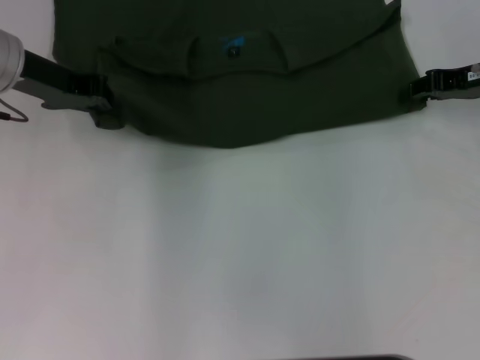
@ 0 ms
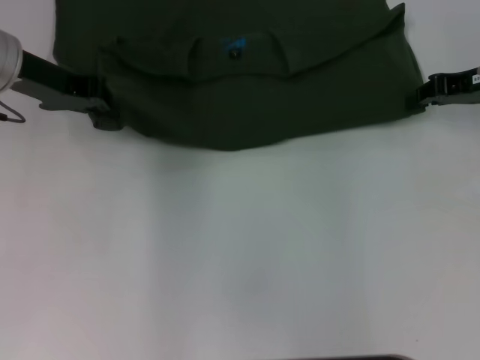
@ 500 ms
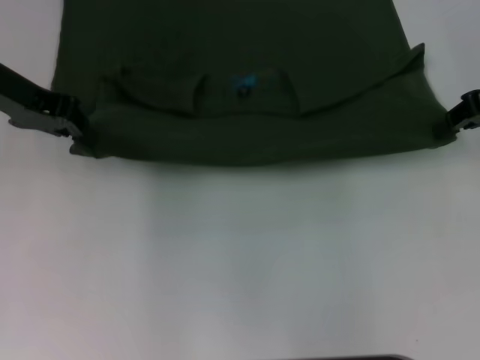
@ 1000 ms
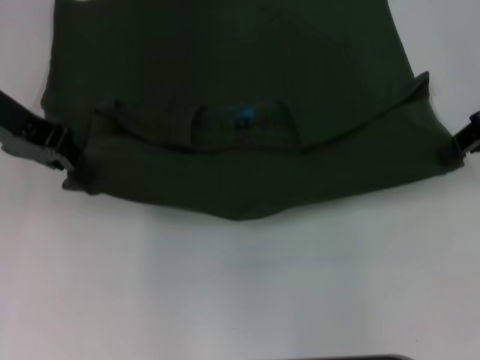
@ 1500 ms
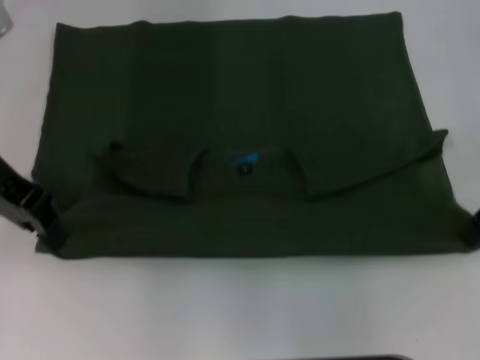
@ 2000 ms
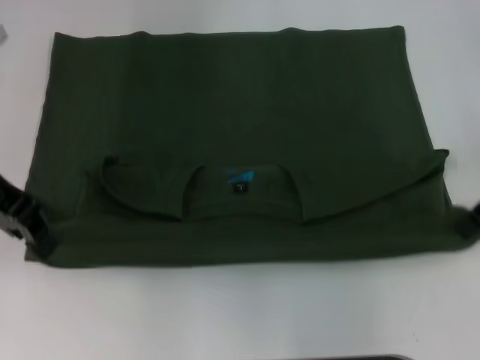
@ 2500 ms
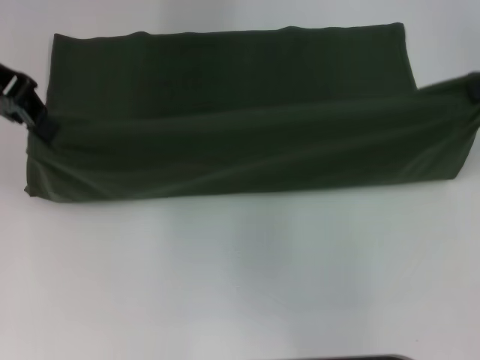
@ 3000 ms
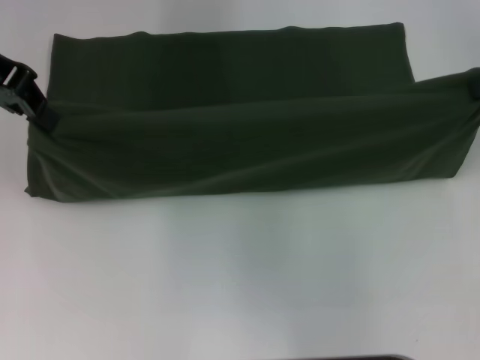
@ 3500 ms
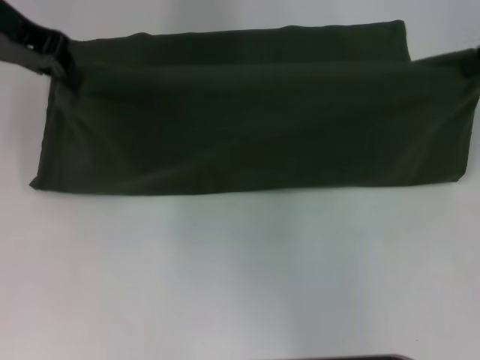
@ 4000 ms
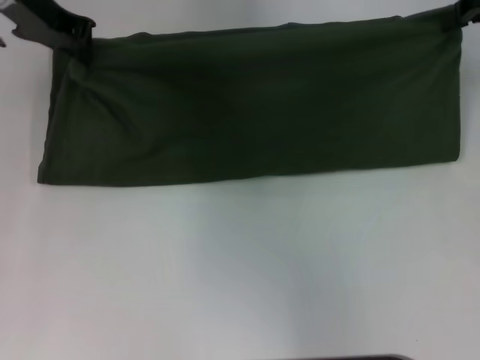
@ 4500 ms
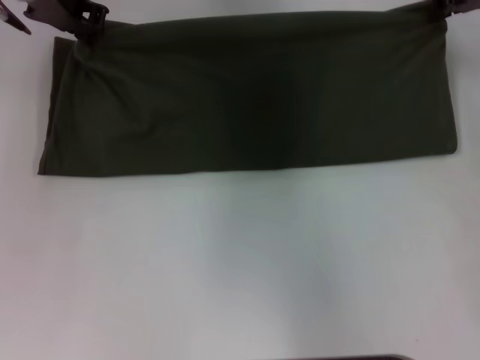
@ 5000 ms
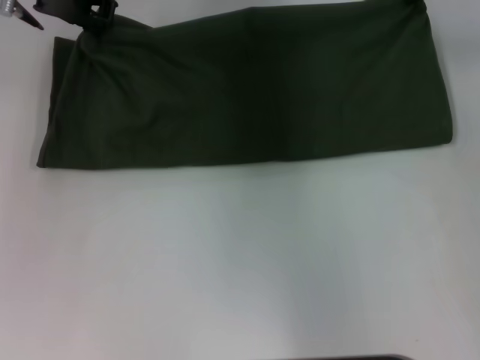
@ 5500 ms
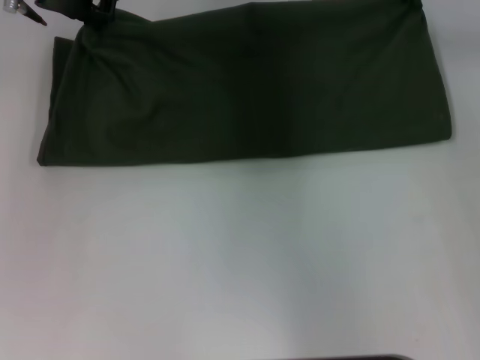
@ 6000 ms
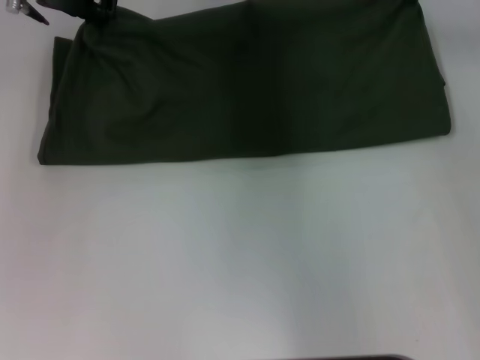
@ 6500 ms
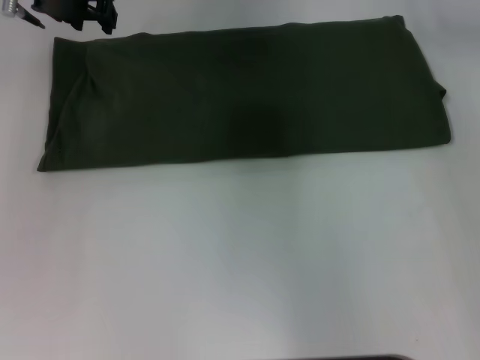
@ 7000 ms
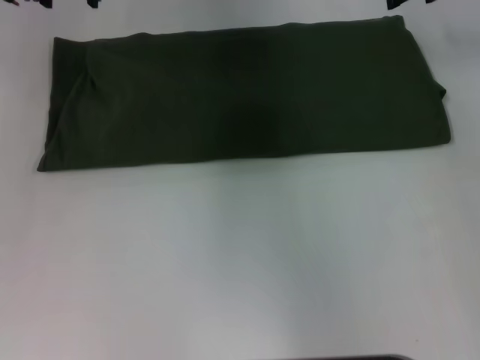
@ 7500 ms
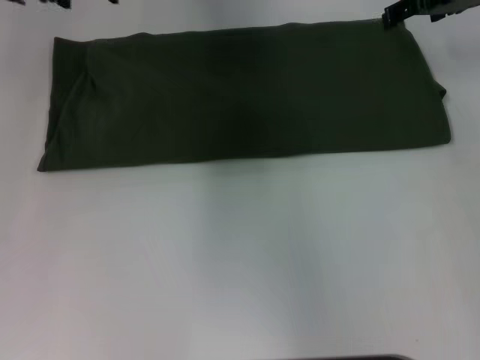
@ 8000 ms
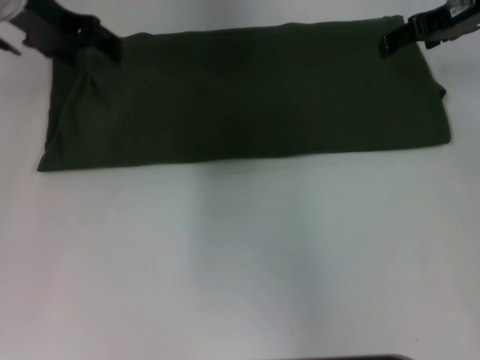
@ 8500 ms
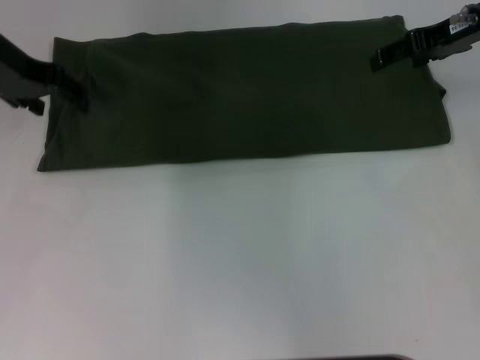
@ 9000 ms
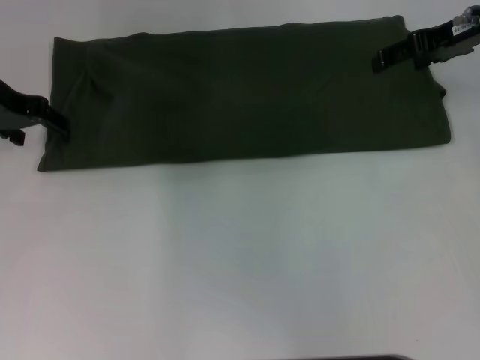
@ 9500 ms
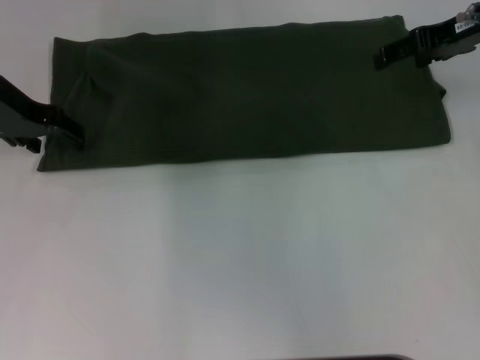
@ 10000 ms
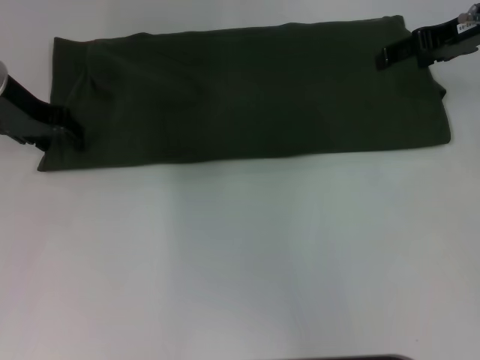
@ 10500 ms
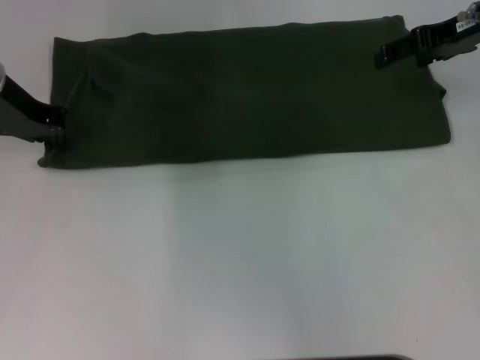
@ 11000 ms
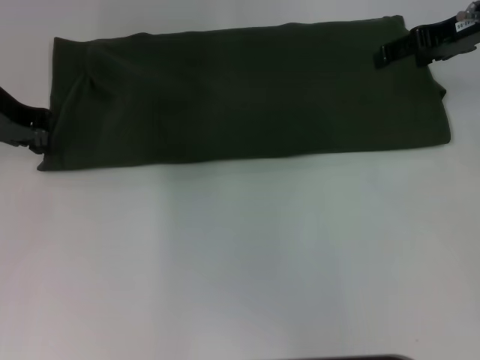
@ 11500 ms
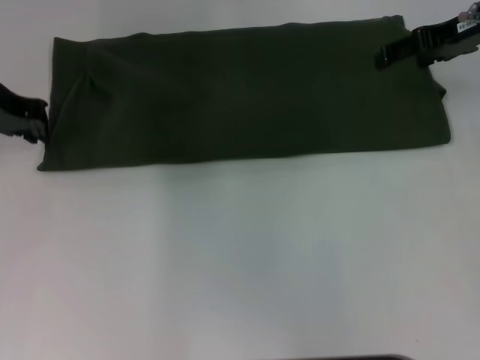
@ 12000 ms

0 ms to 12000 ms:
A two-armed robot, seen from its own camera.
Step, 0 ms to 2000 ms: Pull the clothes with your left hand.
Step, 0 ms to 2000 ms: Pull the clothes with your right hand.
Step, 2500 ms to 7000 ms: Fold the clothes with your left hand.
Step, 2500 ms to 7000 ms: Fold the clothes with your right hand.
0 ms to 2000 ms: Both grippers travel together backward, approximately 5 cm. The right gripper closes its fingers.
2000 ms to 4000 ms: The left gripper is displaced forward and upward by about 10 cm; the right gripper goes roughly 10 cm upward and forward.
4000 ms to 6000 ms: The left gripper shifts approximately 10 cm to the right; the right gripper is displaced to the left and forward by approximately 10 cm.
6000 ms to 8000 ms: The left gripper opens up. The right gripper opens.
8000 ms to 10000 ms: The left gripper shifts some 10 cm downward and backward.
10000 ms to 12000 ms: The left gripper closes its fingers.

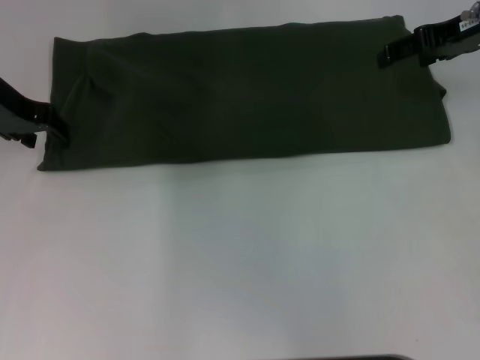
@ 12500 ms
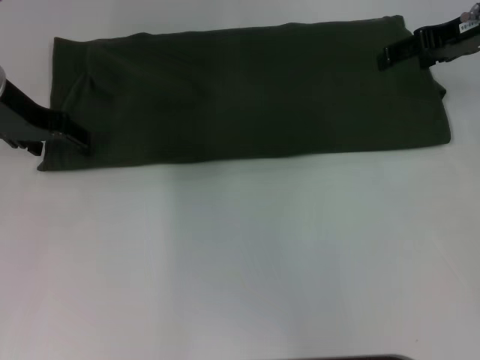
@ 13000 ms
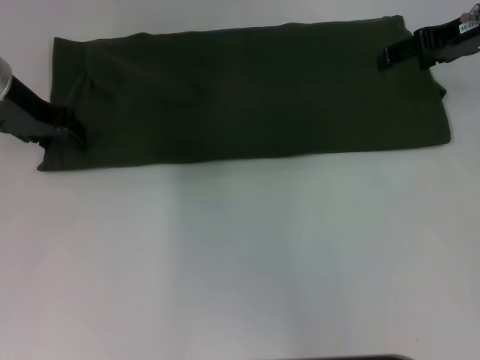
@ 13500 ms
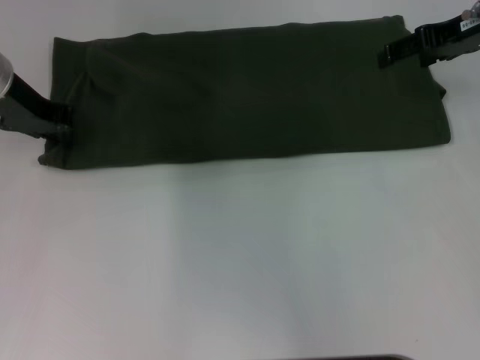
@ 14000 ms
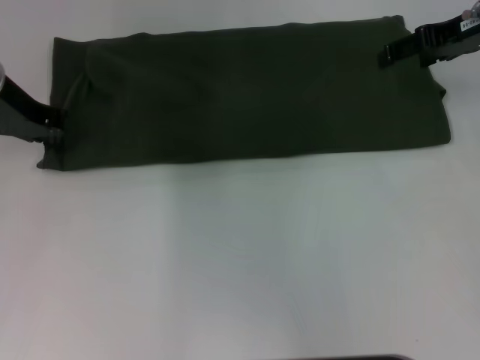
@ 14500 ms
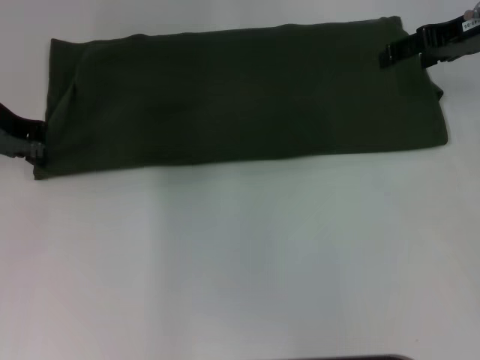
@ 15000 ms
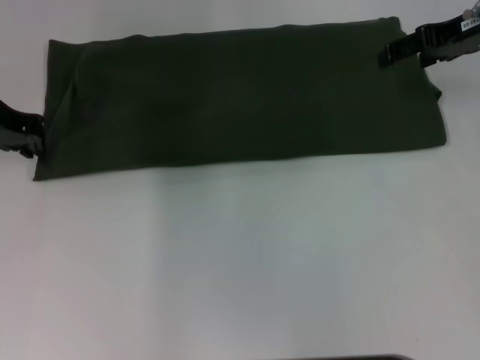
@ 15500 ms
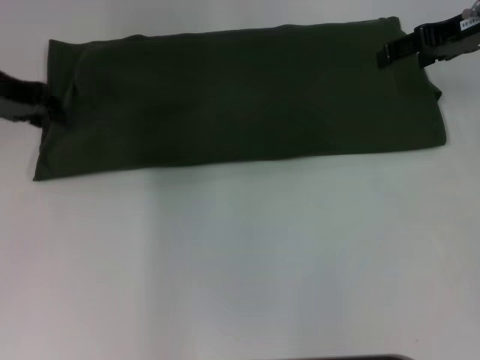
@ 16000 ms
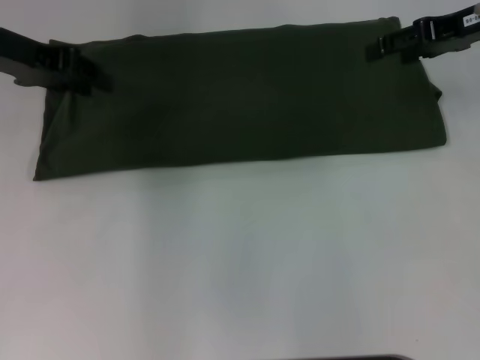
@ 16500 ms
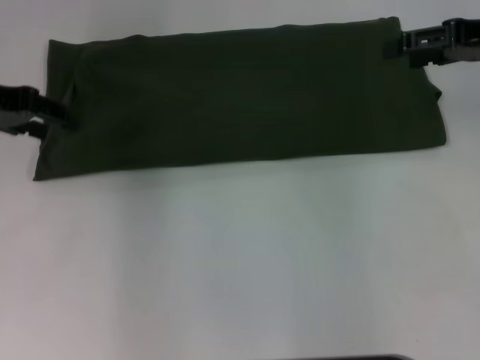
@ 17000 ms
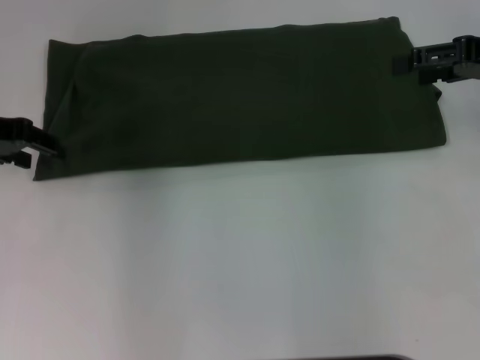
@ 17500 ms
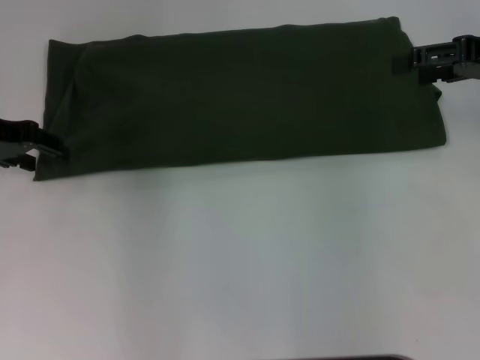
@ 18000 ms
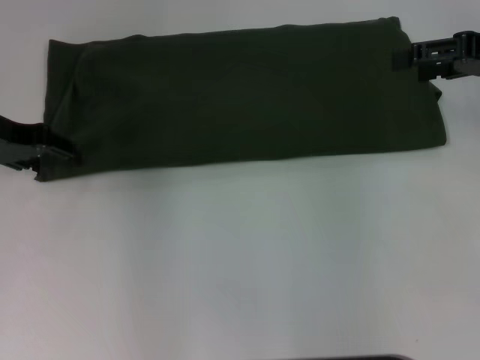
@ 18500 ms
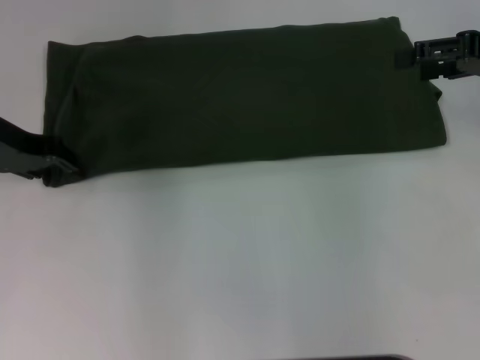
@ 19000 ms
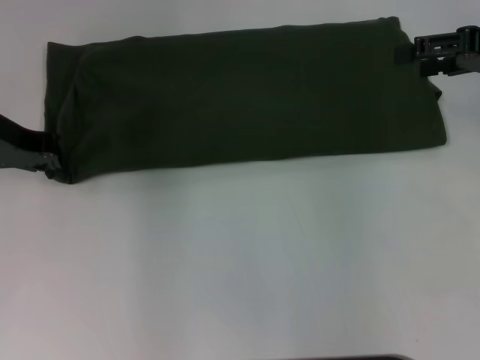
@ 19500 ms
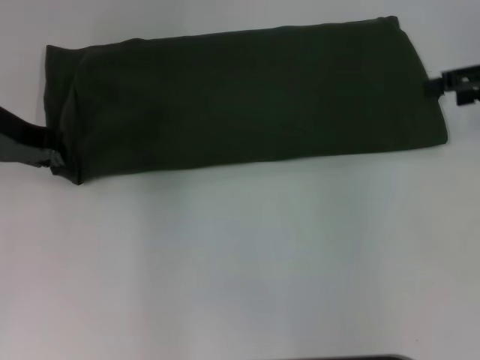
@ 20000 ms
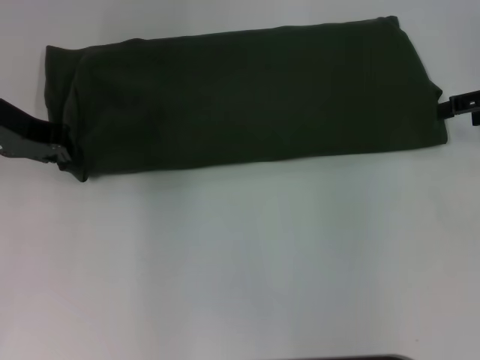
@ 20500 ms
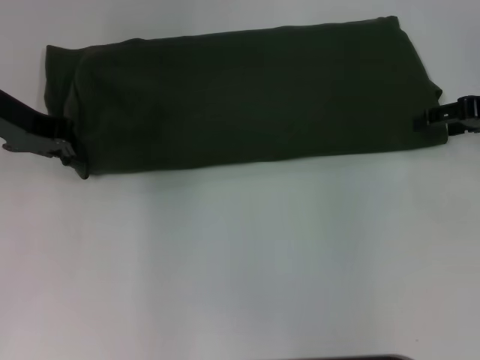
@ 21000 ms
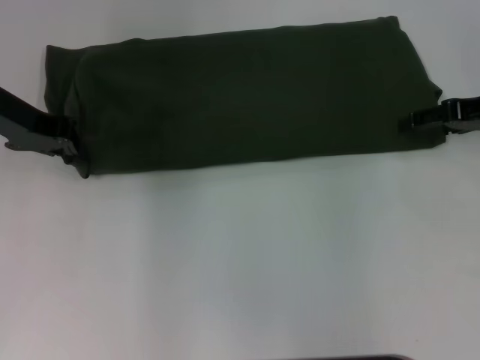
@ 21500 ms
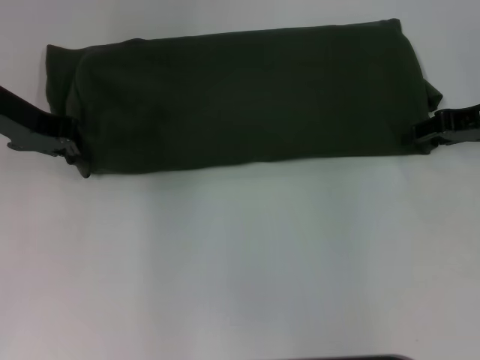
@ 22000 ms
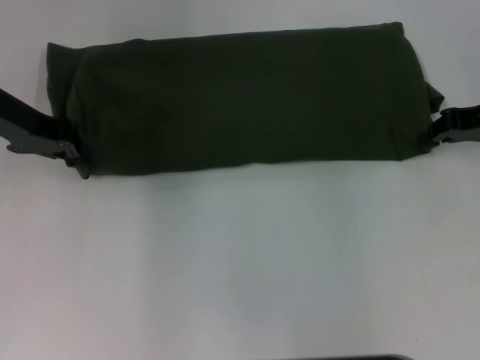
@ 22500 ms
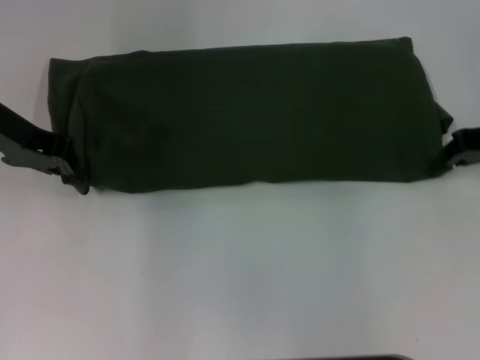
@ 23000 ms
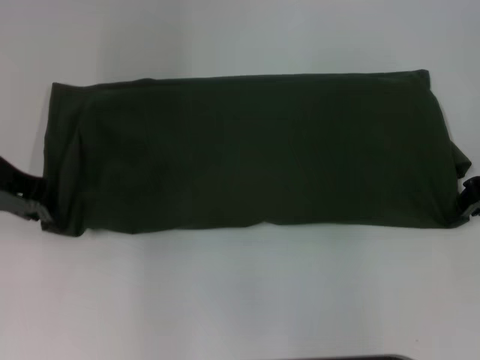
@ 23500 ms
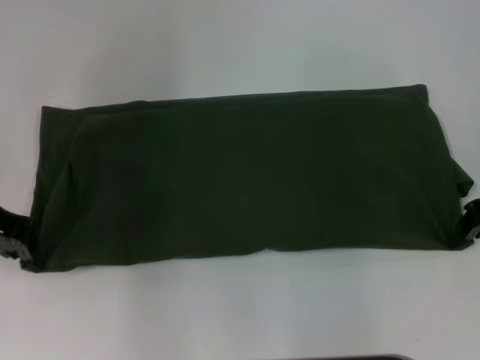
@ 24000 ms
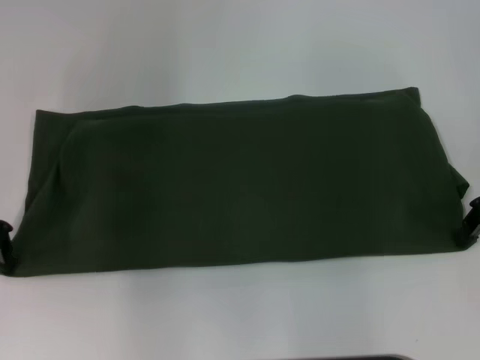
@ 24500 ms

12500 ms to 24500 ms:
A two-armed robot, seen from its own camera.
14500 ms to 16500 ms: The left gripper opens.
16500 ms to 18500 ms: The right gripper shifts by some 5 cm. The left gripper shifts some 5 cm downward.
18500 ms to 20500 ms: The left gripper closes.
20500 ms to 22500 ms: The right gripper closes.
22500 ms to 24500 ms: The left gripper moves backward, about 5 cm.

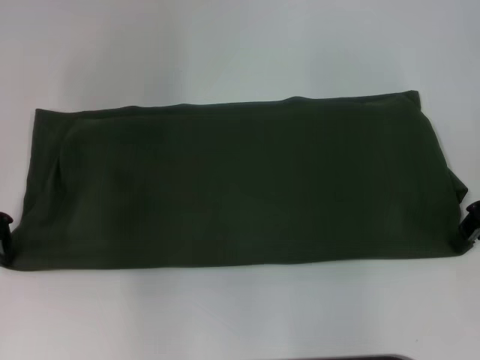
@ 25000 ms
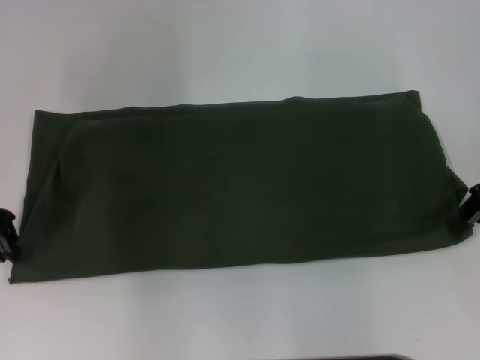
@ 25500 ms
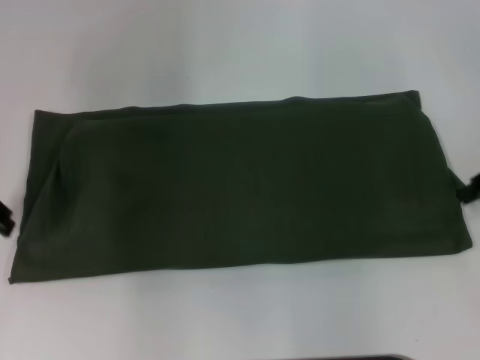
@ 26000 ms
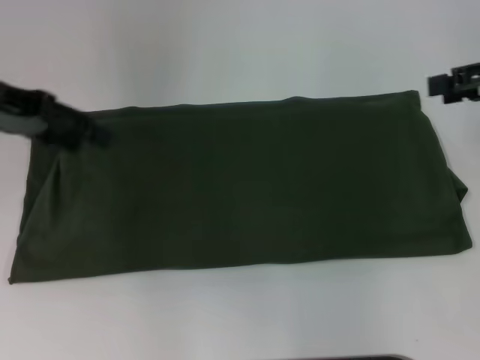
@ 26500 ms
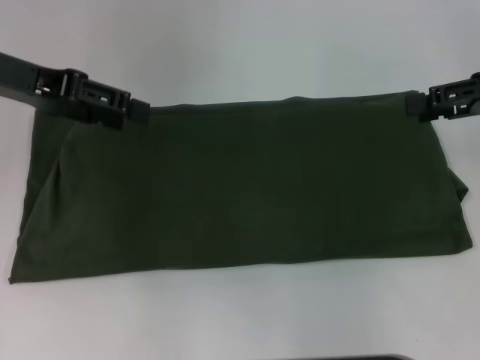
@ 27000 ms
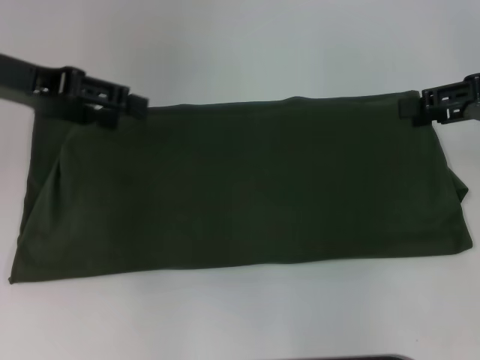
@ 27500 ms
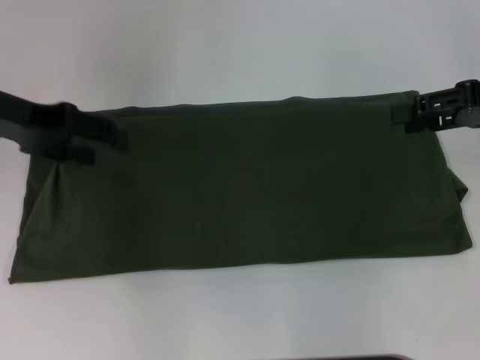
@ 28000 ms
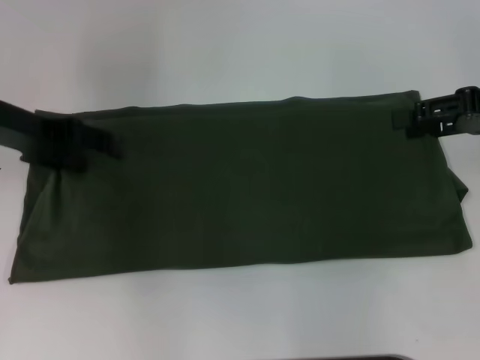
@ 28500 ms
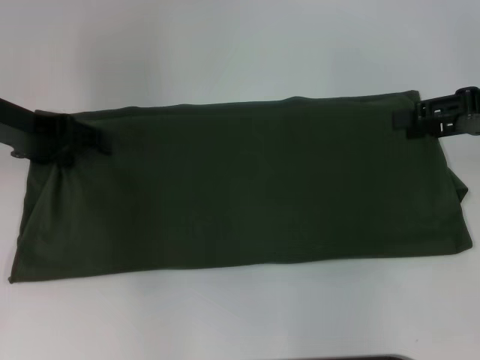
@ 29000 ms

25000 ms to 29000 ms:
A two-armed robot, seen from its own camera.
25000 ms to 27000 ms: Both grippers move upward, approximately 5 cm. The left gripper opens its fingers, while the right gripper opens up.
27000 ms to 29000 ms: The left gripper shifts some 5 cm downward.
